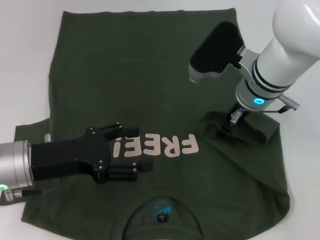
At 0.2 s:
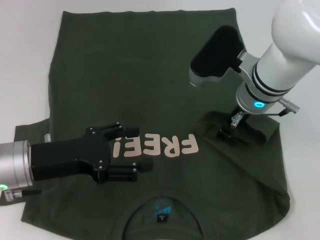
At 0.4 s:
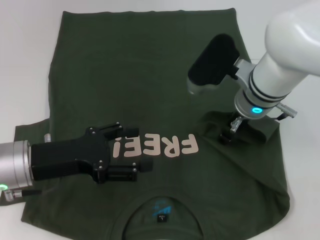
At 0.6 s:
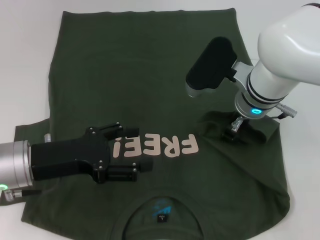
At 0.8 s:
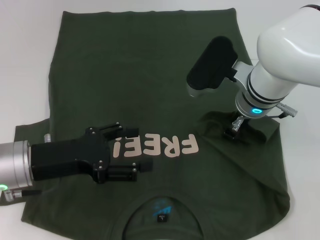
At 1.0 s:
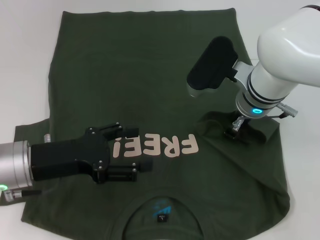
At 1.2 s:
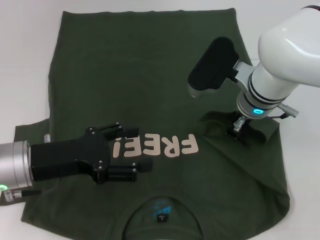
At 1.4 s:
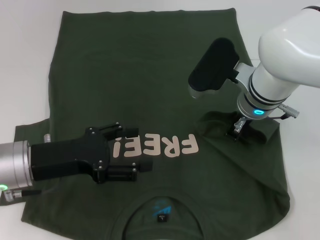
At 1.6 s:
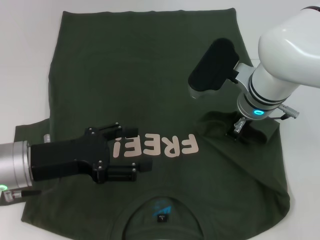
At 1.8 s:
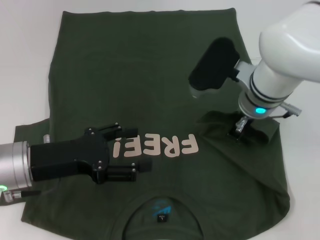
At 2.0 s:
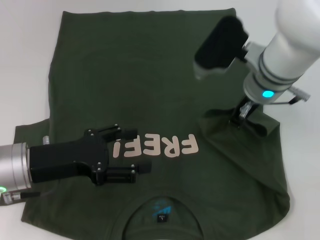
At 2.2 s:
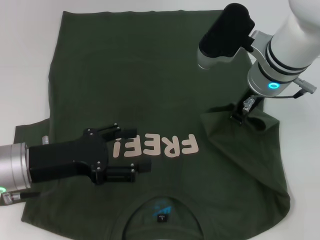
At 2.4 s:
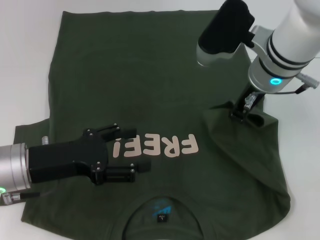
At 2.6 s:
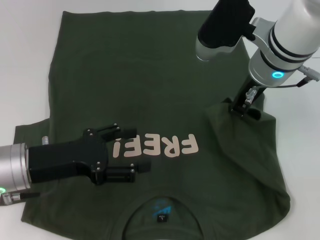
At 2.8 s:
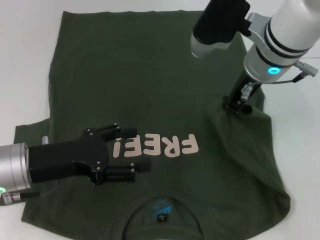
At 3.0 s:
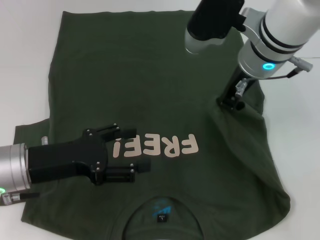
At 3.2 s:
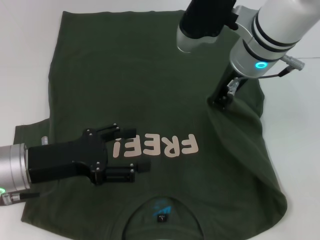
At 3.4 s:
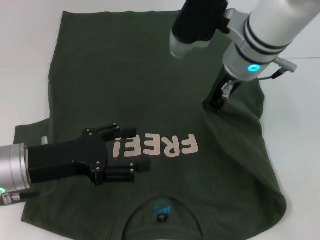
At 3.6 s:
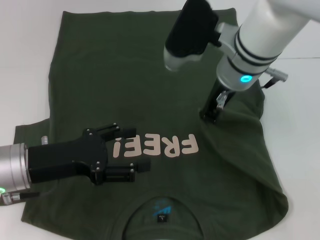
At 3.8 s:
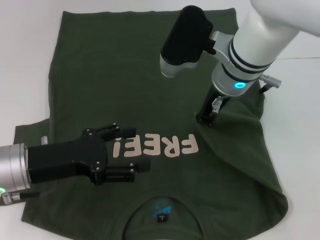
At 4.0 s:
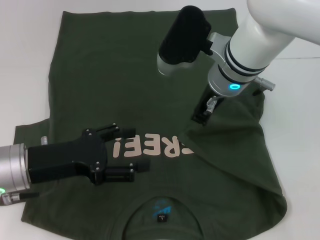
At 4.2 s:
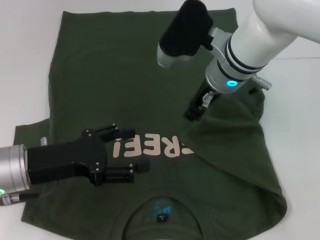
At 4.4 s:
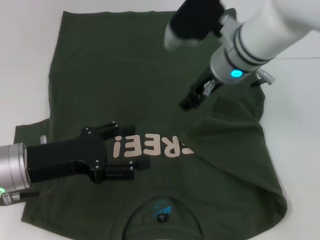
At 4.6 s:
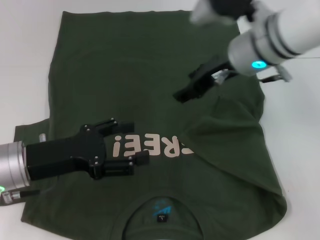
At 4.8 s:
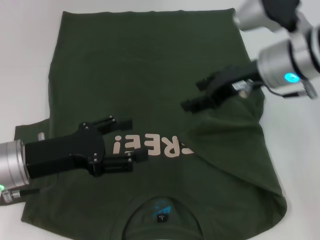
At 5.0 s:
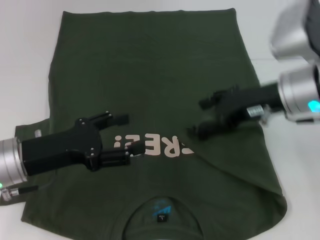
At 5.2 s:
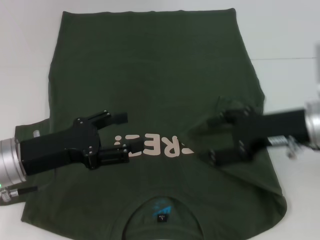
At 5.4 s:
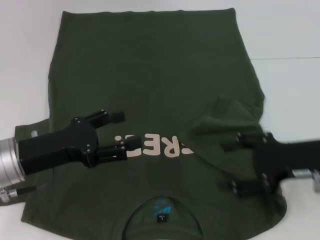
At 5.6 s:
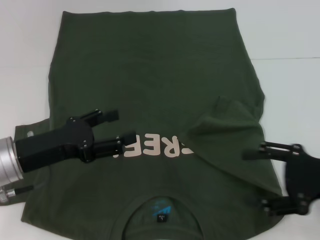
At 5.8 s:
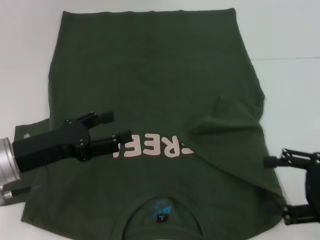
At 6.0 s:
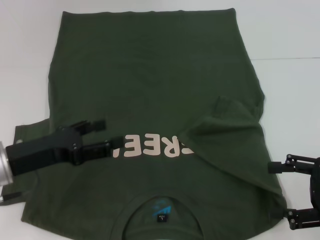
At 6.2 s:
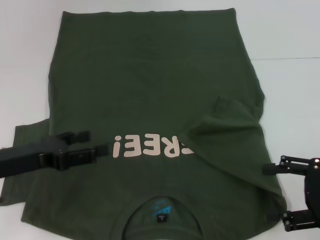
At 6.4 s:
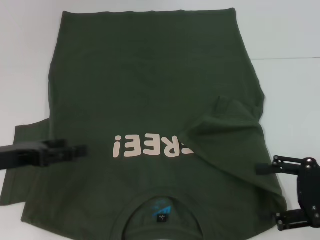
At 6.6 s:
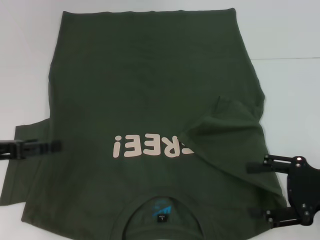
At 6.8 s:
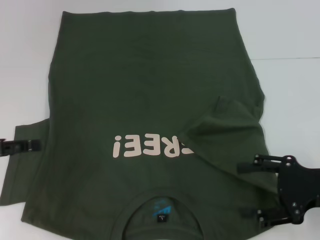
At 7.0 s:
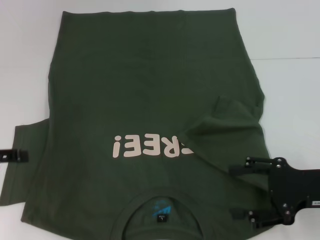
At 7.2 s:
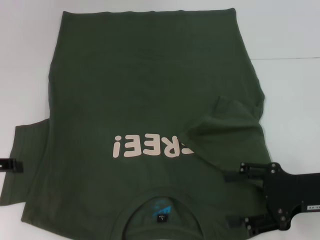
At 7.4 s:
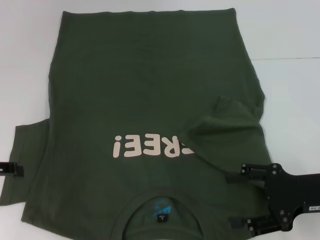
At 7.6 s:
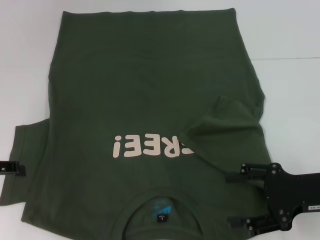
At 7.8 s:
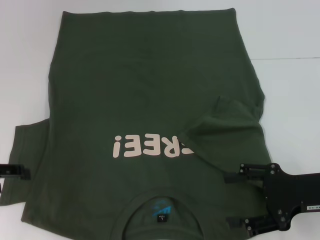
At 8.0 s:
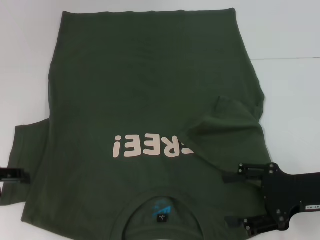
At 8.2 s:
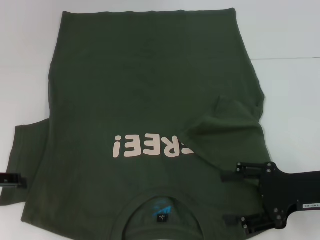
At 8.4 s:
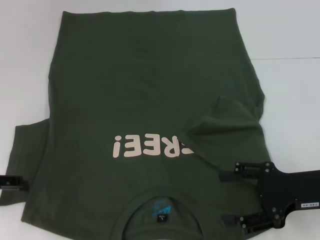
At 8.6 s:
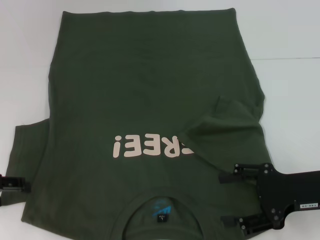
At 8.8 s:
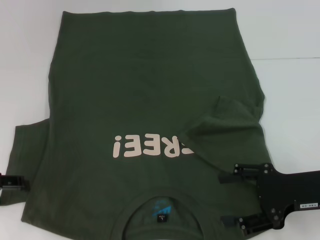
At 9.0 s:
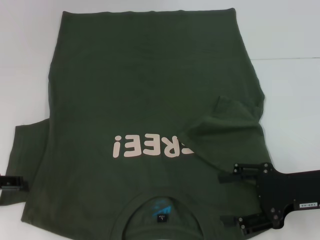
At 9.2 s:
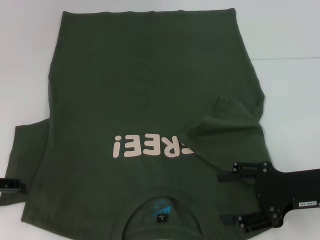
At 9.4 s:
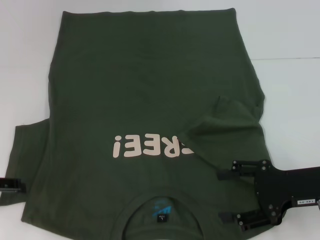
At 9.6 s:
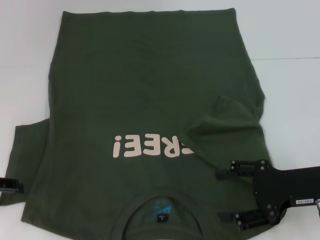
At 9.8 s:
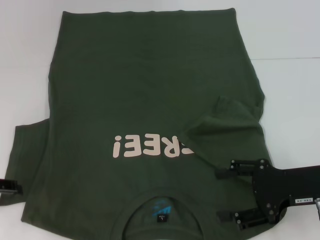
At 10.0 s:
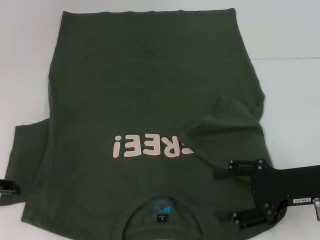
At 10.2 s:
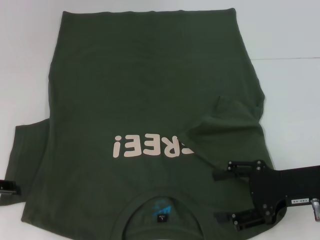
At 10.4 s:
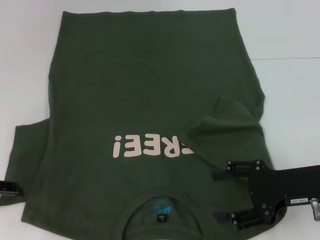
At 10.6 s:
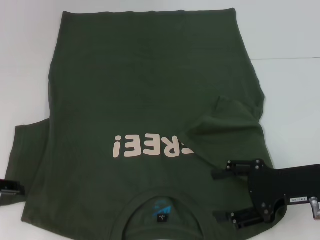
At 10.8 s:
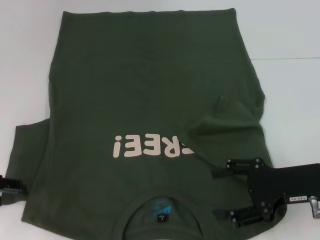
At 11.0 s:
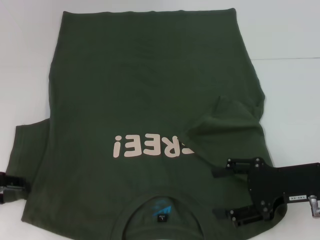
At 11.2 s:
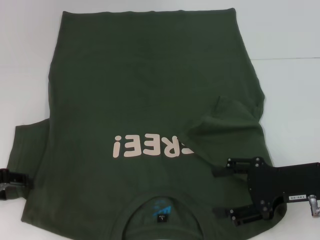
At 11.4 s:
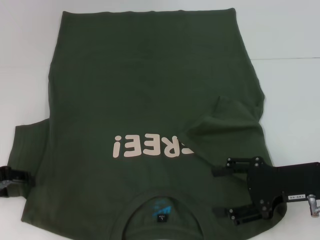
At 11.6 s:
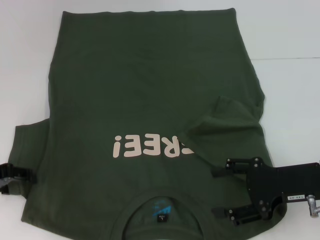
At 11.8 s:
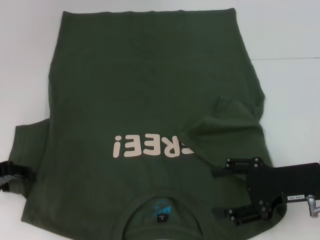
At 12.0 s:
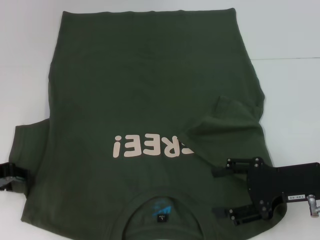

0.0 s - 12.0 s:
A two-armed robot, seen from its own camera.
Step, 0.0 s - 4.4 s: Fold the bottom right sleeve with your right hand.
0.0 s - 1.6 s: The right gripper closes.
1.6 s - 3.0 s: The right gripper is displaced upward by about 10 cm.
3.0 s - 4.4 s: The grippers stay close to where they were, moving slightly.
4.4 s - 6.0 s: The right gripper heads to the right and backward, covering roughly 30 cm, and opens its fingers.
6.0 s - 7.6 s: The right gripper ends up some 5 cm from where it was; the left gripper heads to the left, covering roughly 10 cm.
7.6 s - 9.0 s: The grippers make only small movements.
9.0 s - 10.4 s: Neither gripper changes place.
10.4 s - 12.0 s: The grippers make only small movements.

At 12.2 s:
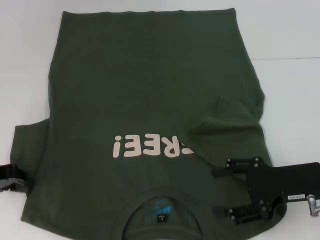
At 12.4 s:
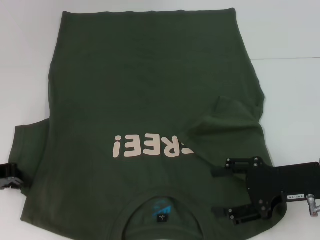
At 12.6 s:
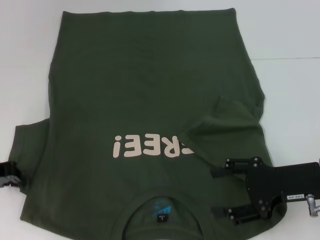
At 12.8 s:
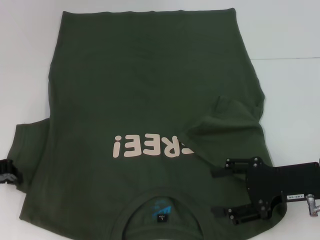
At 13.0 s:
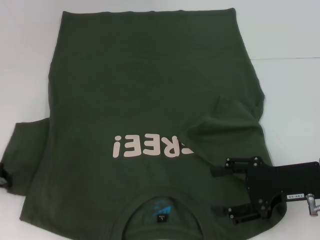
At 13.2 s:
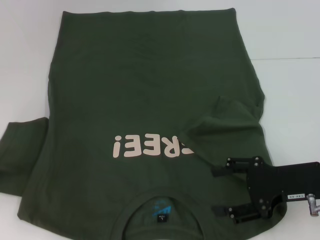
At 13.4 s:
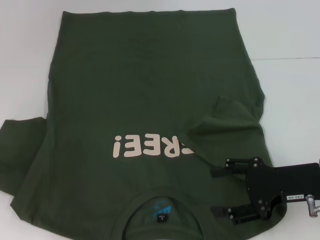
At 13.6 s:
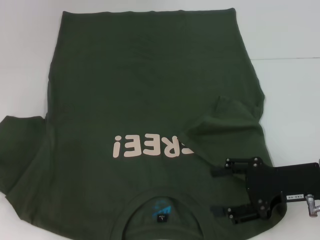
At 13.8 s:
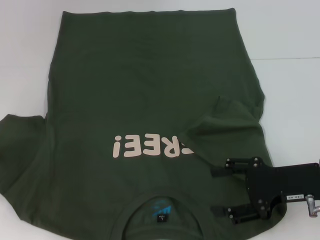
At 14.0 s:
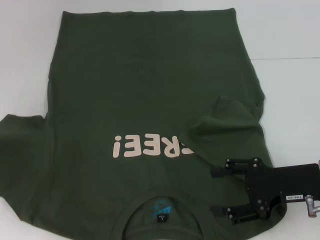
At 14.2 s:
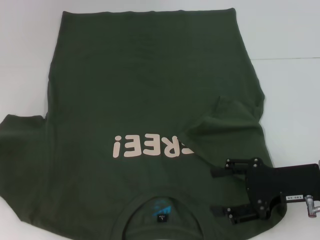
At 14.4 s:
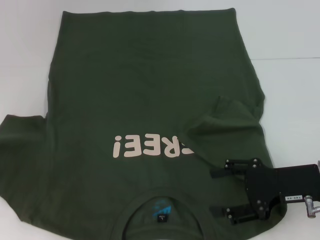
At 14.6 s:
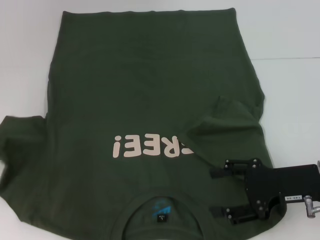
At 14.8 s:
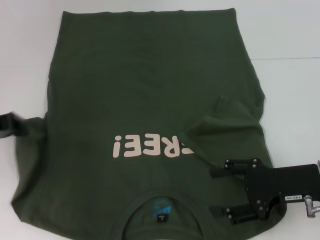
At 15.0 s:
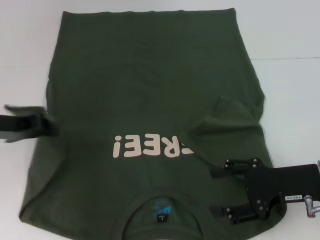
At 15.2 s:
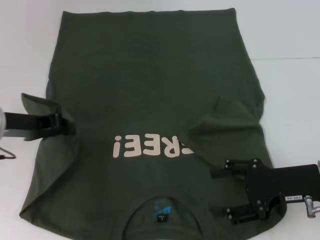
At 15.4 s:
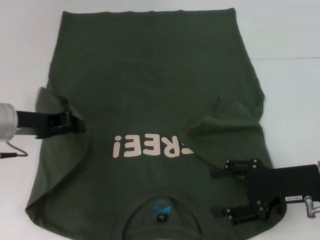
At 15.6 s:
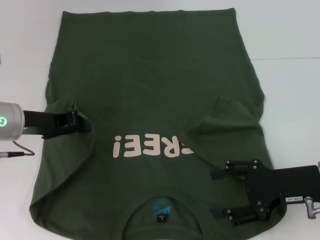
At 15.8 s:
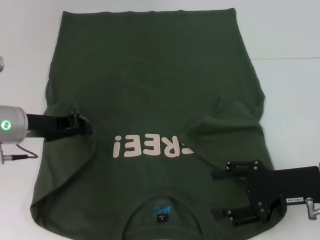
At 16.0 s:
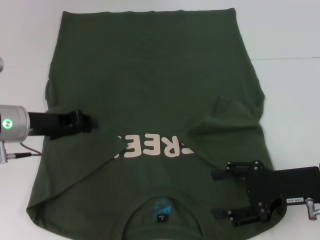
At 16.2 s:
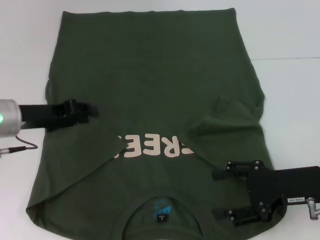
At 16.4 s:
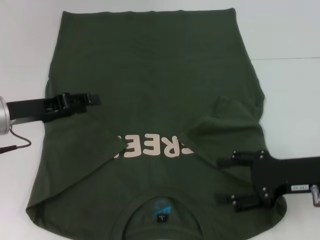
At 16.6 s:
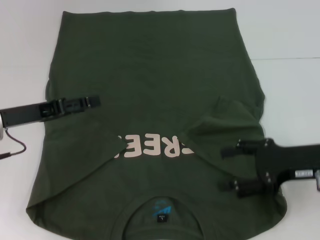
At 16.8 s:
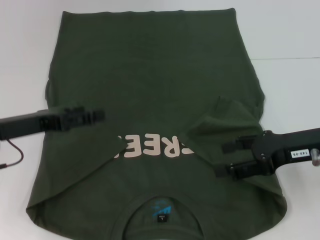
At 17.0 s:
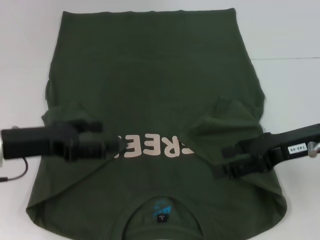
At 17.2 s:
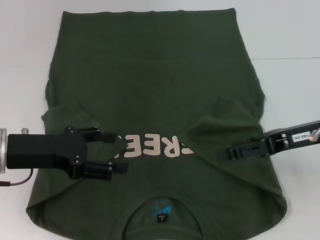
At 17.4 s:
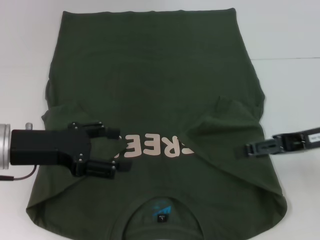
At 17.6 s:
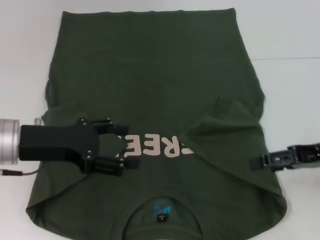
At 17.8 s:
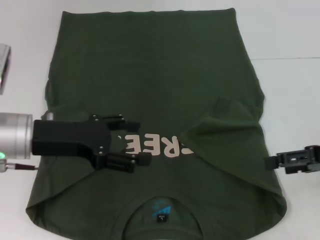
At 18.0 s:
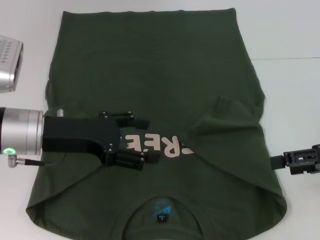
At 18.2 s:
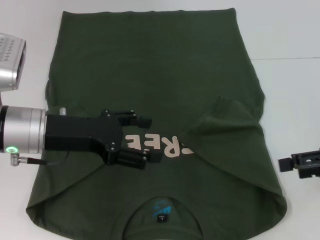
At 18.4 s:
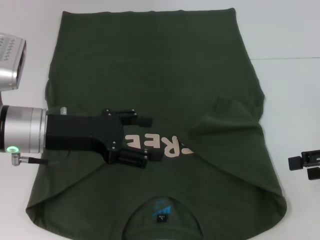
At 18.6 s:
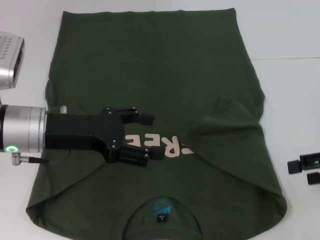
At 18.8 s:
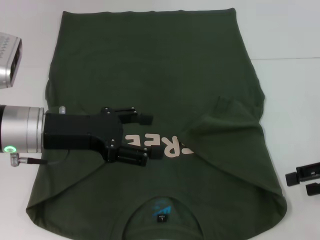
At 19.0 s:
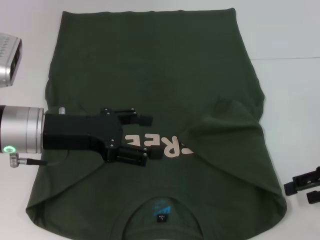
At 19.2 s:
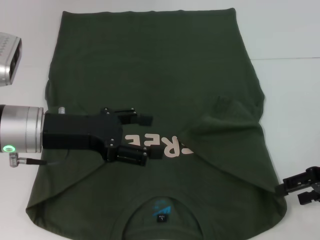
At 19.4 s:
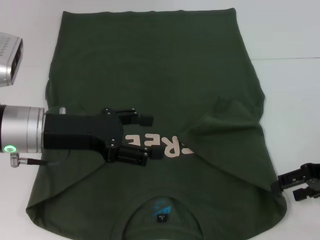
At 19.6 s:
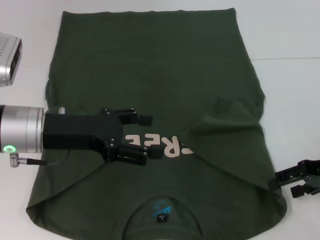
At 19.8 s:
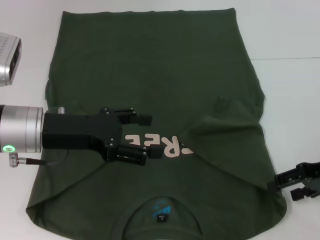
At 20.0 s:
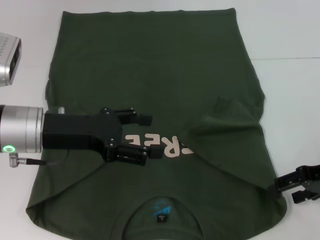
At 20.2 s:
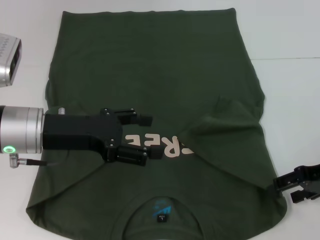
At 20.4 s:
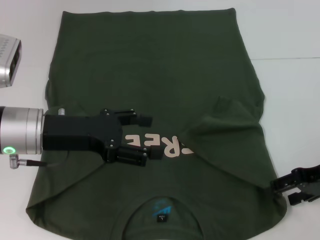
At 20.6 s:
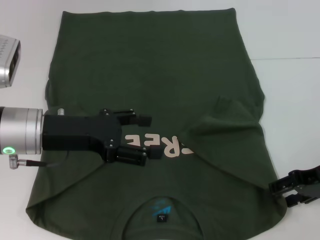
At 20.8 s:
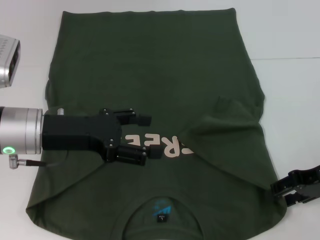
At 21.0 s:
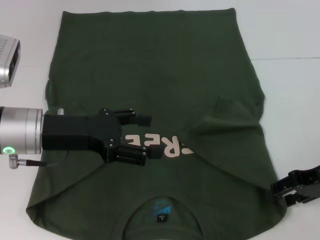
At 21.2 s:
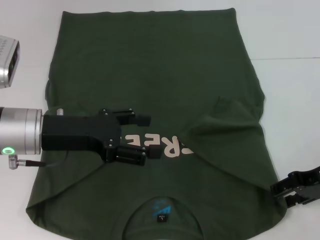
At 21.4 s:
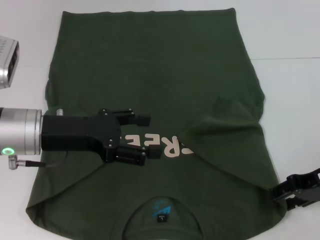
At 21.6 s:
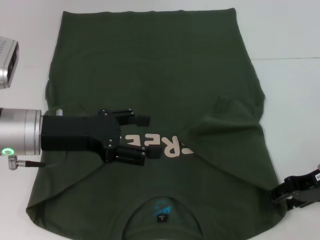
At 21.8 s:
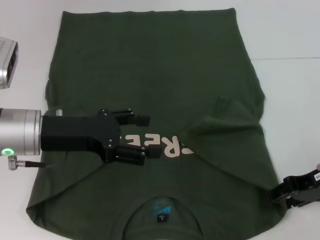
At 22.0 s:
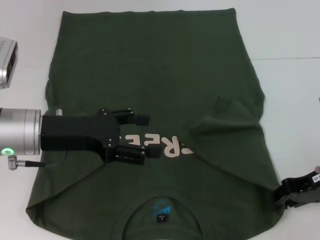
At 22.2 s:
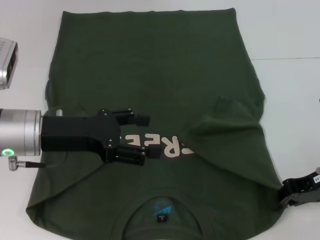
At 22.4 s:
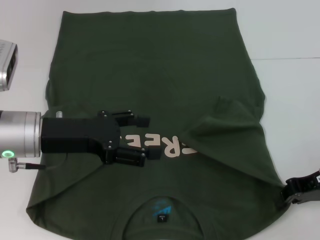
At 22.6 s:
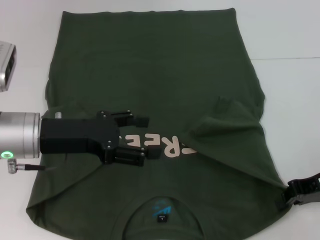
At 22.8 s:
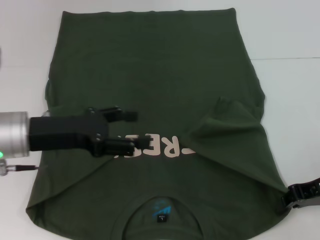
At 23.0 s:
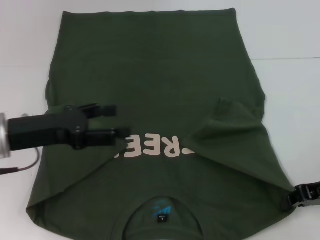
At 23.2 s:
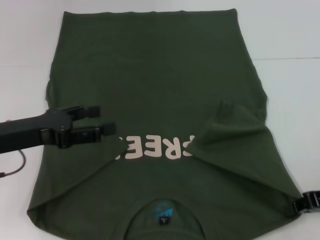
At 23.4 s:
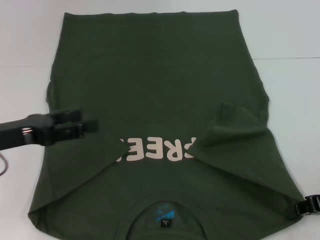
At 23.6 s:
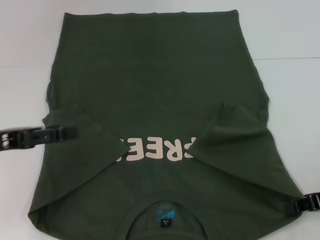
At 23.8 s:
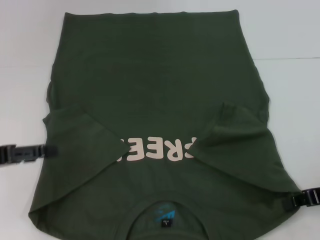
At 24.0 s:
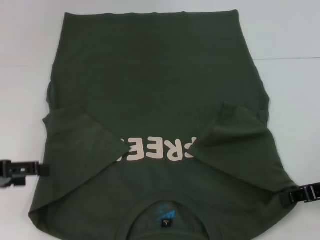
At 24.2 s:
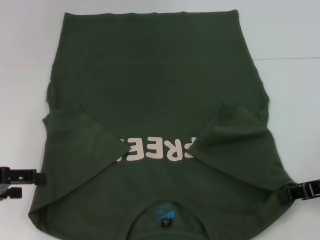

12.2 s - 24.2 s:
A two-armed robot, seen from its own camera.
Step, 12.2 s - 16.2 s: Fold the bottom left sleeve with your left hand.
Step, 16.4 s - 22.4 s: Grab the bottom right corner with your right hand.
12.2 s - 13.8 s: The left gripper moves roughly 5 cm, and closes up.
13.8 s - 15.2 s: The left gripper is displaced to the right by roughly 10 cm.
15.2 s - 16.6 s: The left gripper opens up.
16.6 s - 18.2 s: The right gripper travels to the right and upward by about 10 cm. The left gripper shifts some 5 cm to the right, and opens its fingers.
18.2 s - 19.8 s: The right gripper shifts by about 5 cm.
19.8 s - 21.2 s: The grippers stay close to where they were, moving slightly.
21.2 s - 22.6 s: The right gripper closes.
22.6 s - 24.2 s: The left gripper heads to the left and backward, covering some 15 cm.
